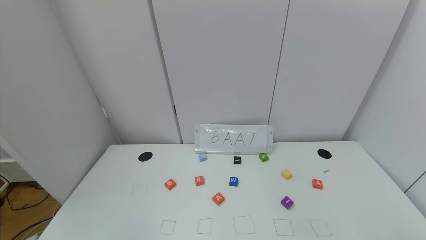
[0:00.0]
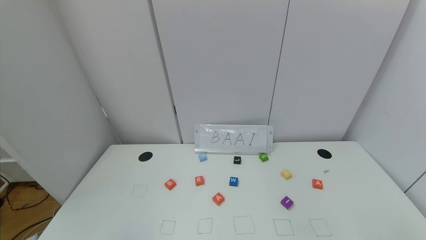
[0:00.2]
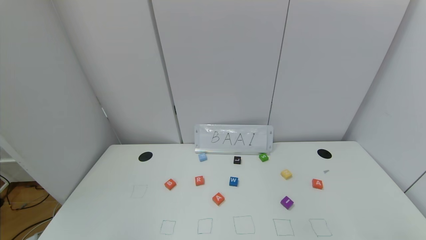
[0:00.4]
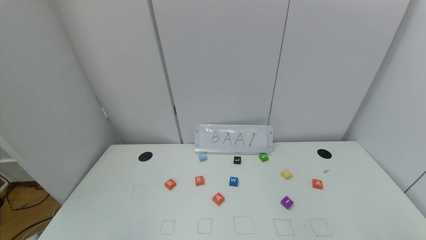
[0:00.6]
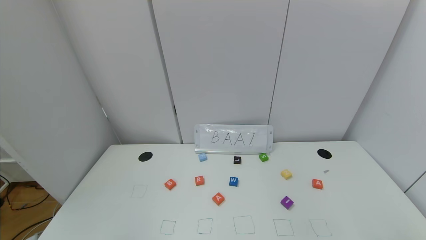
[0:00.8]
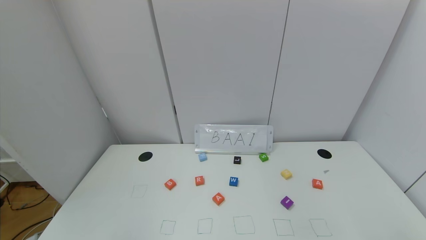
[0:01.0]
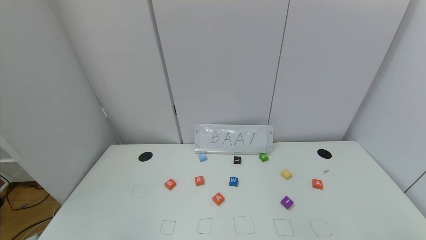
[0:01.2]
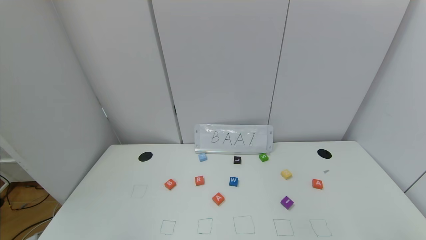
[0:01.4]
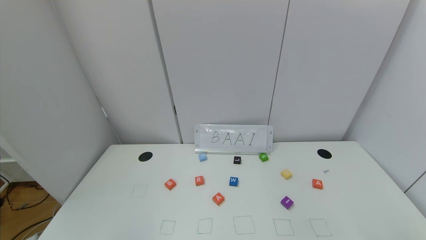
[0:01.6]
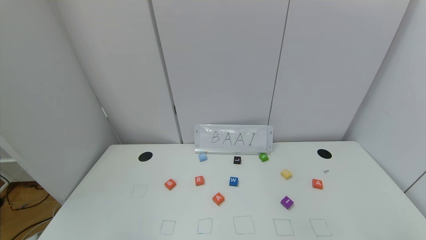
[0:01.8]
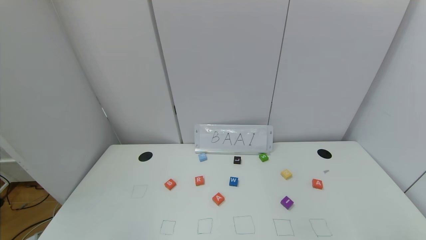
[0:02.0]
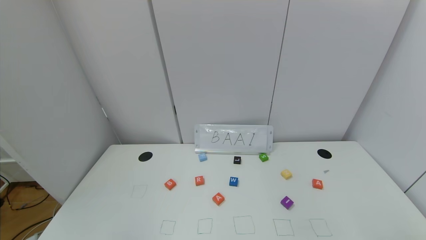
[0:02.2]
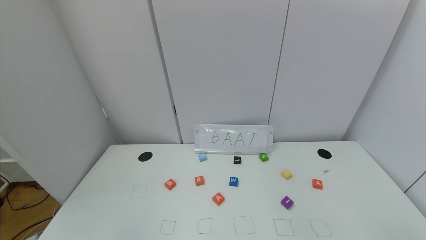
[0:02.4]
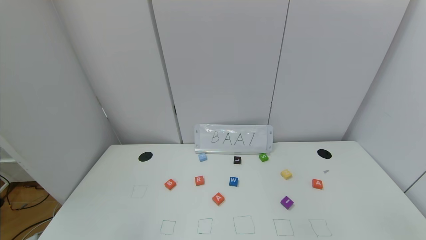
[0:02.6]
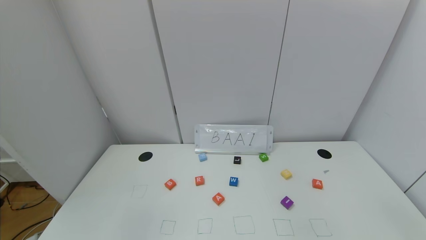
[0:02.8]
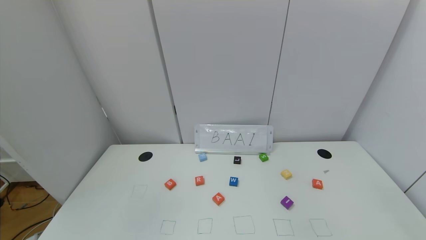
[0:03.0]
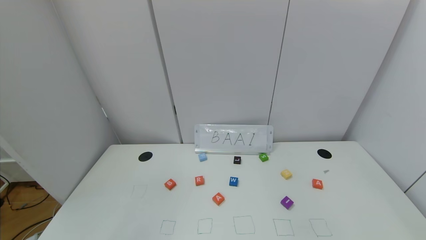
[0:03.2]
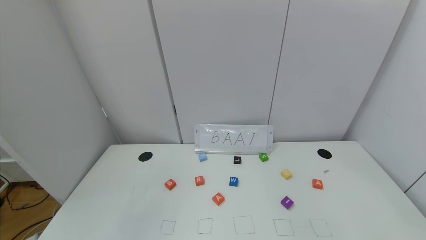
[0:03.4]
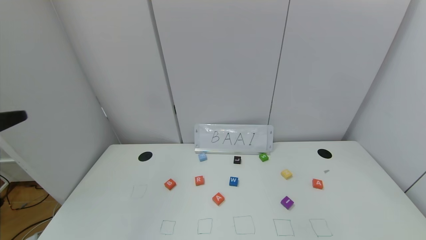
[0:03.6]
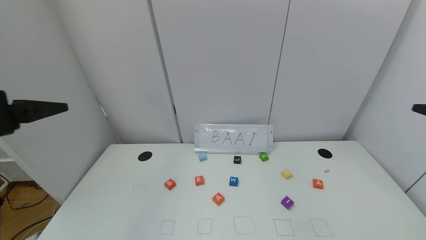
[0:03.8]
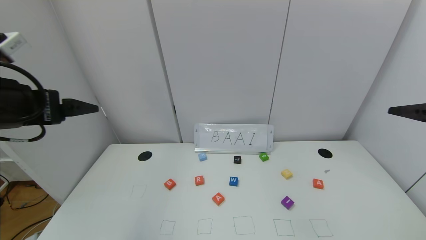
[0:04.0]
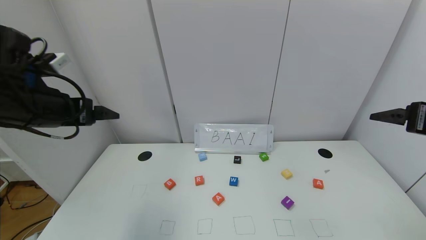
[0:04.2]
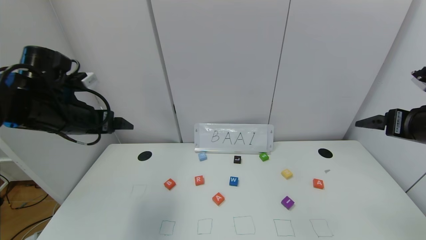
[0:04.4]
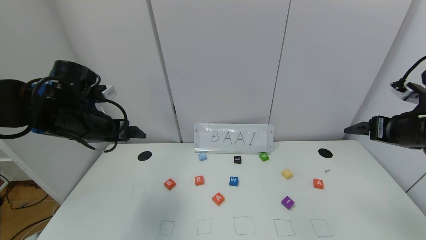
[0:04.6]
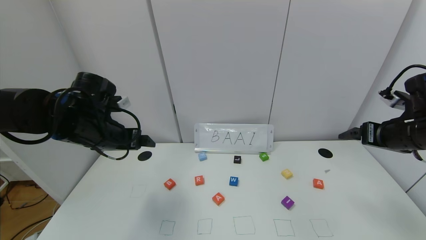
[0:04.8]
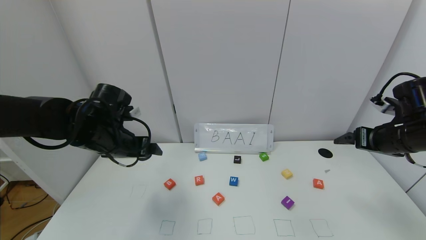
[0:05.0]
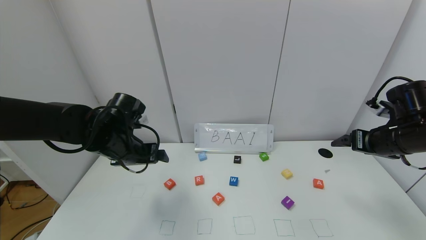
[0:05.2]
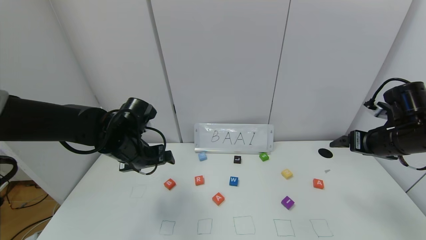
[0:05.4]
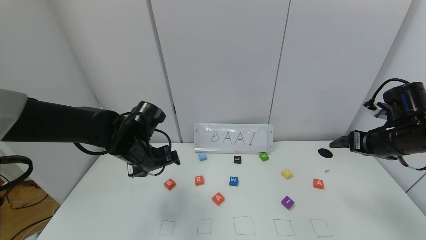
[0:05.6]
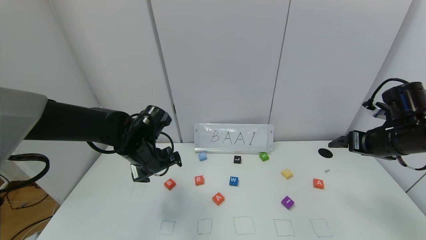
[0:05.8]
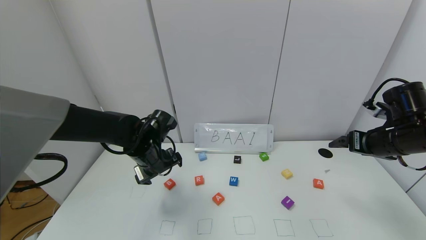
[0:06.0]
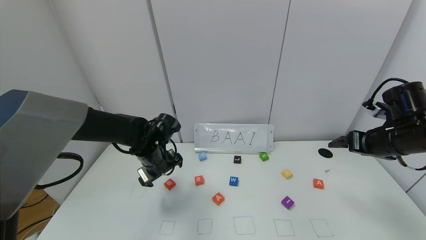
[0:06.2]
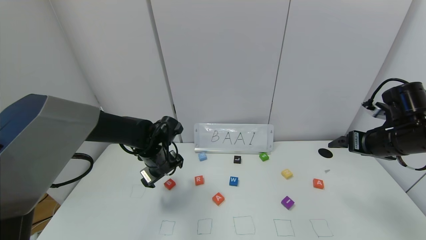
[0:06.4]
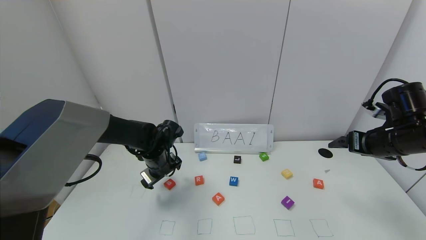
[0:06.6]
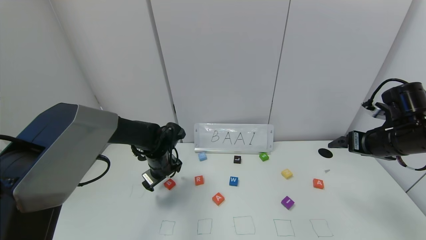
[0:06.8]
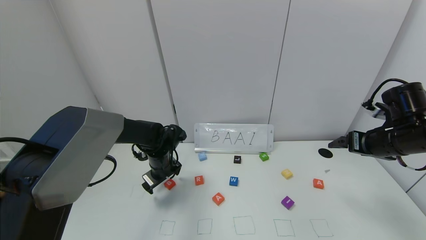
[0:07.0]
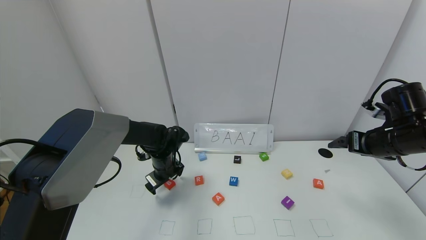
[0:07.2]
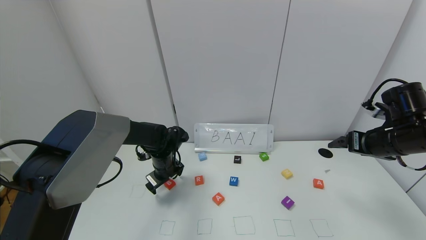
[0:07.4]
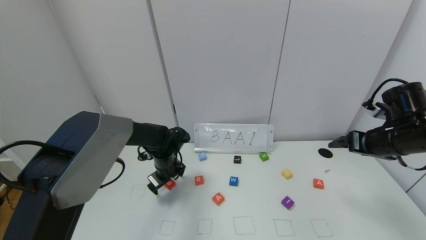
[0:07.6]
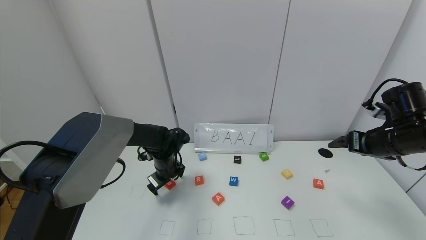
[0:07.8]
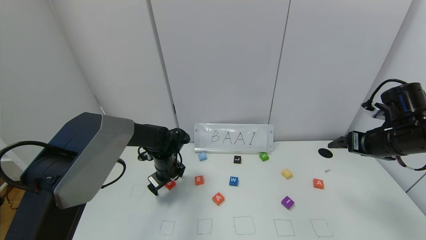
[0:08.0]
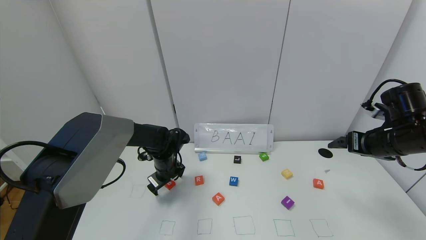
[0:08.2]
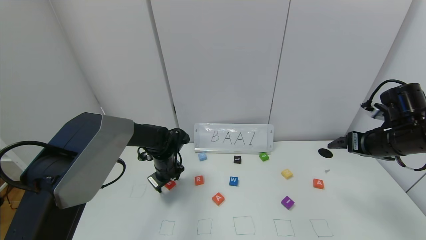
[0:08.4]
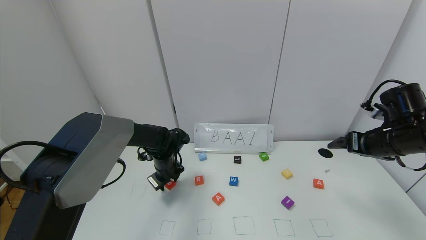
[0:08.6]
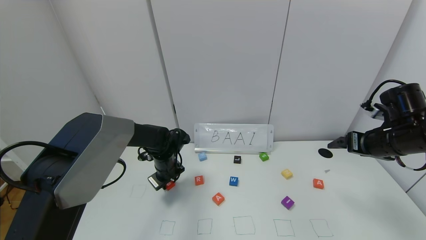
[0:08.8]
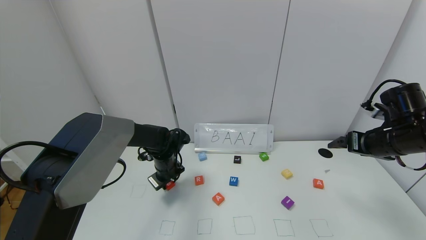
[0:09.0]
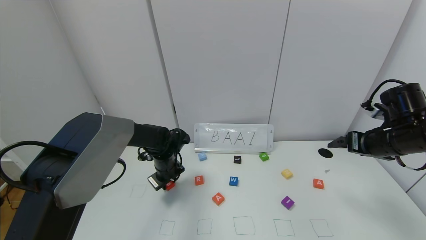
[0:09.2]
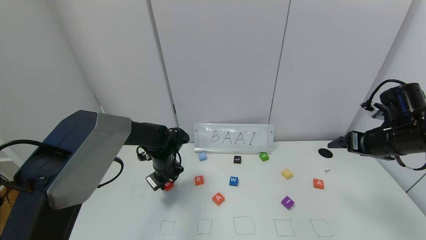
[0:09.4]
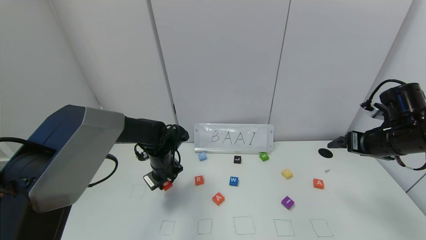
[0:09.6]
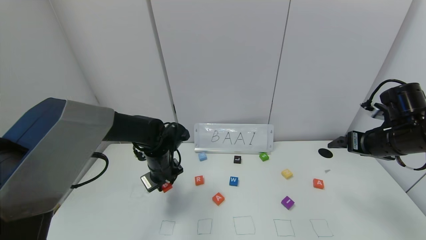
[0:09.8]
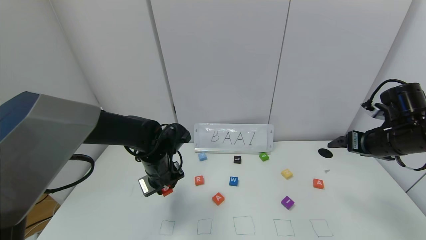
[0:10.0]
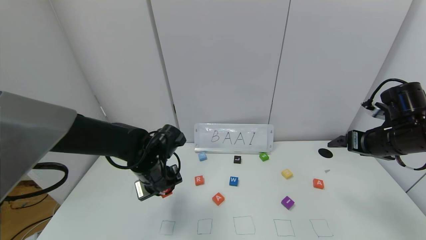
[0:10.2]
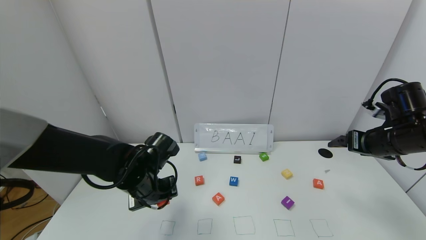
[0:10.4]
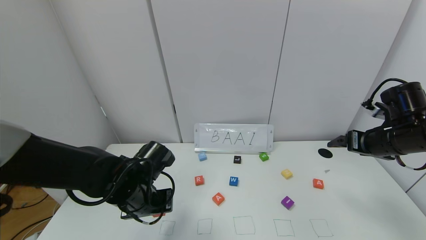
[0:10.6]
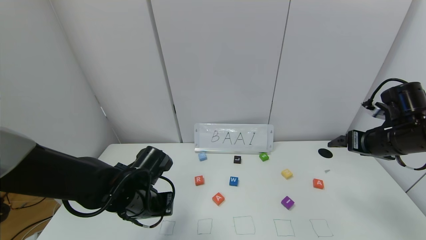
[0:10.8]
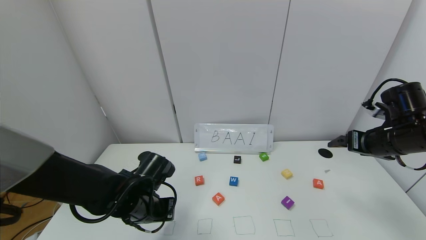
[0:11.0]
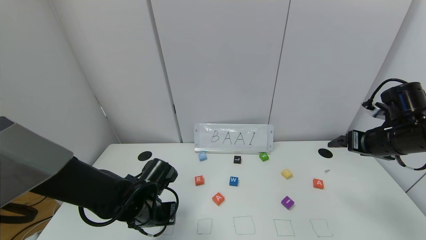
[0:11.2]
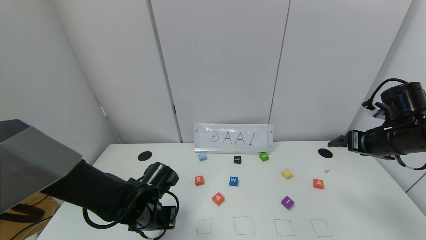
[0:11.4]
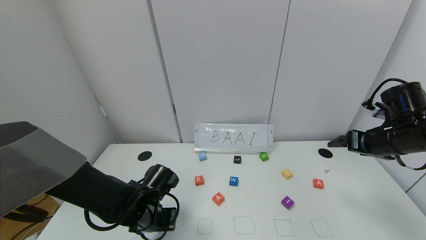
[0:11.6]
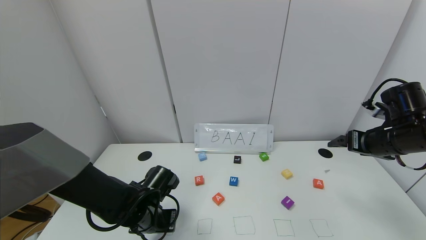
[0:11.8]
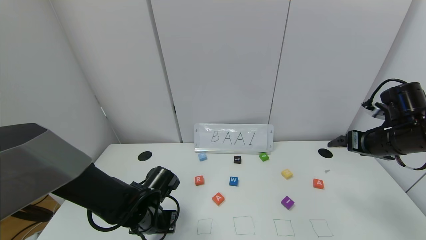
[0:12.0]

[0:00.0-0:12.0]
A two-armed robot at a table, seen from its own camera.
Task of the whole recording: use the gripper to find blocks with the letters b, a, a, and i on the table and arrange them into BAAI, then find r and N and turn the arranged baai into brian.
0:00.0 to 0:01.6: The two grippers keep their place.
0:03.0 to 0:04.4: Both grippers move forward, some 30 cm.
0:04.4 to 0:06.0: The right gripper is displaced downward and forward by some 10 cm; the left gripper travels downward, to the right and forward by approximately 20 cm.
0:06.0 to 0:07.6: The left gripper is displaced downward and forward by some 10 cm.
0:07.6 to 0:09.0: The left gripper closes.
0:09.0 to 0:10.4: The left gripper is displaced backward and upward by some 15 cm.
0:10.4 to 0:12.0: The left gripper heads downward, covering some 10 cm.

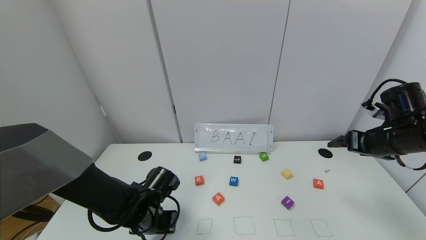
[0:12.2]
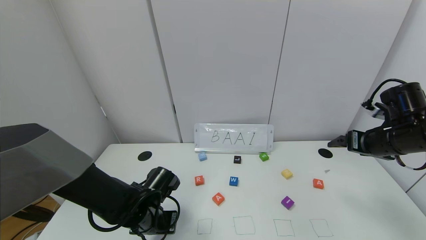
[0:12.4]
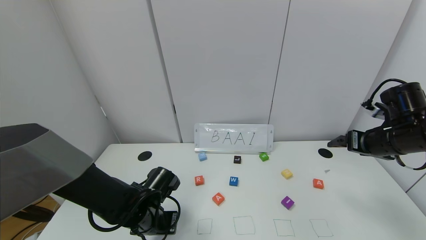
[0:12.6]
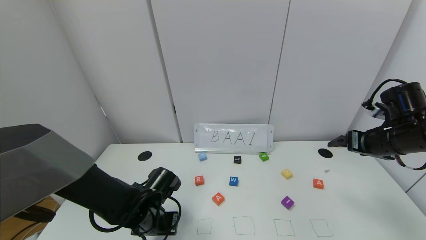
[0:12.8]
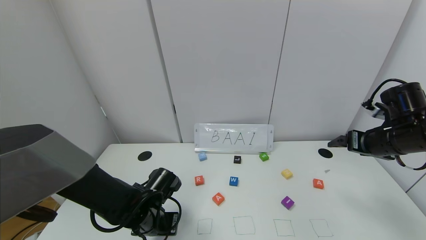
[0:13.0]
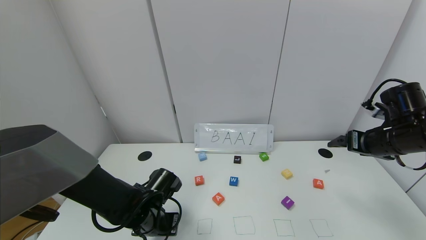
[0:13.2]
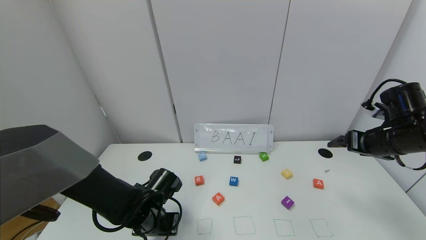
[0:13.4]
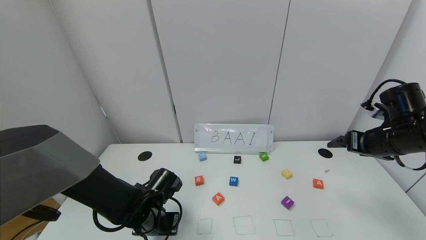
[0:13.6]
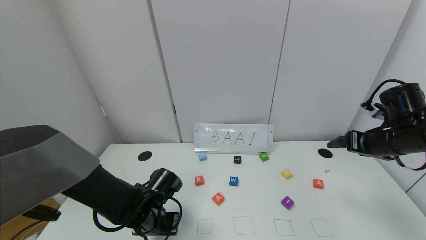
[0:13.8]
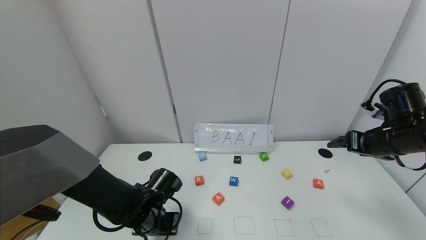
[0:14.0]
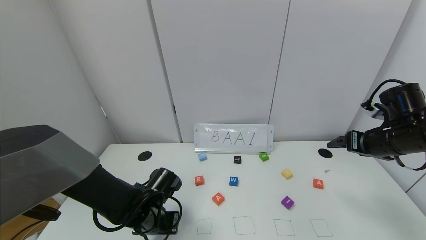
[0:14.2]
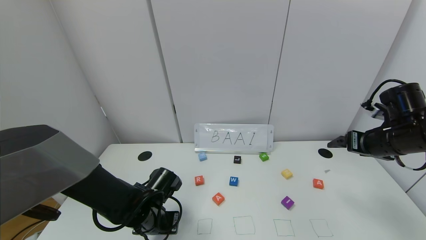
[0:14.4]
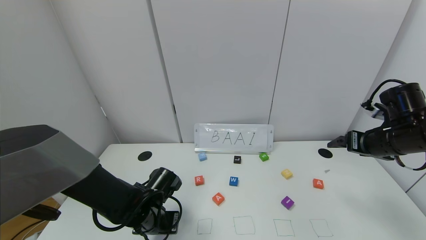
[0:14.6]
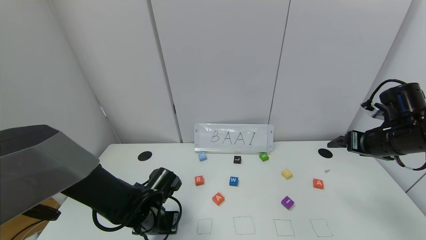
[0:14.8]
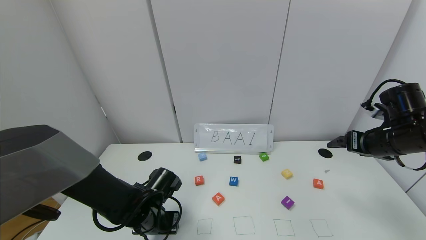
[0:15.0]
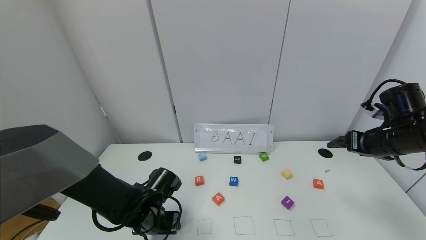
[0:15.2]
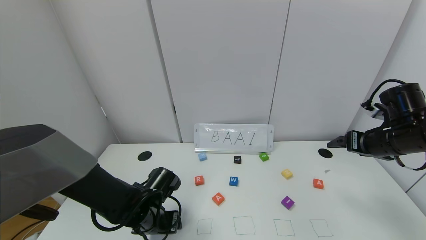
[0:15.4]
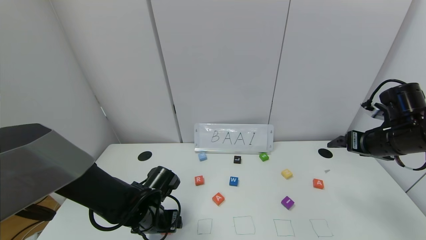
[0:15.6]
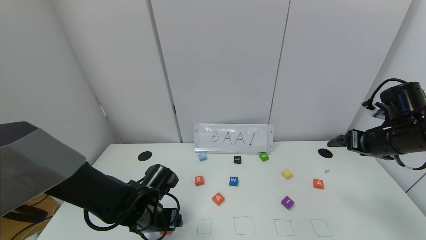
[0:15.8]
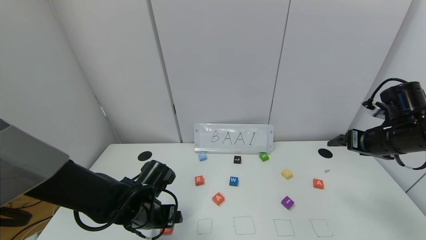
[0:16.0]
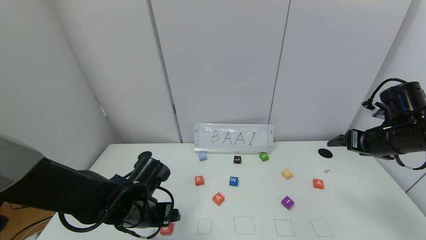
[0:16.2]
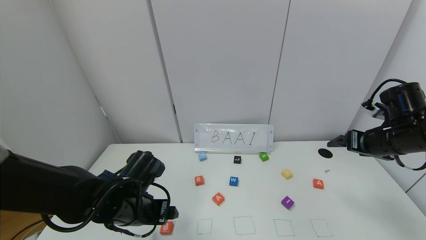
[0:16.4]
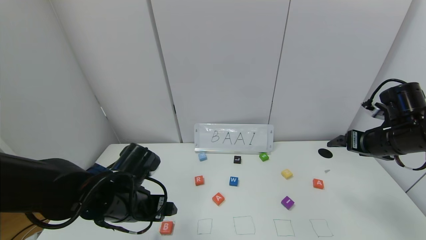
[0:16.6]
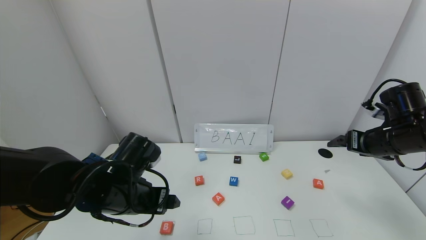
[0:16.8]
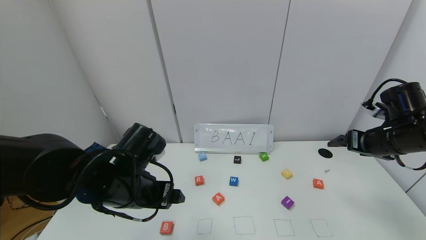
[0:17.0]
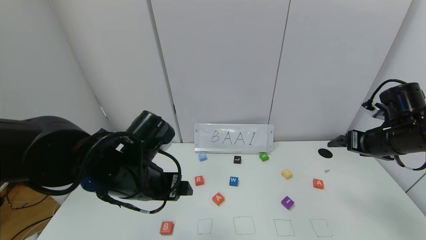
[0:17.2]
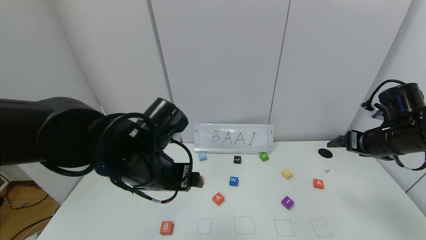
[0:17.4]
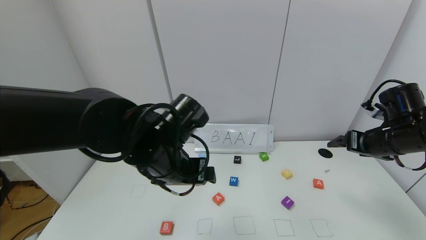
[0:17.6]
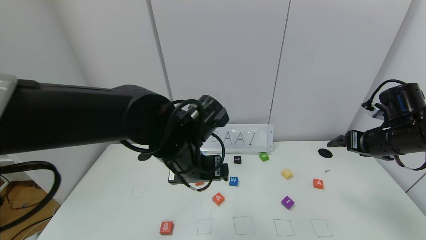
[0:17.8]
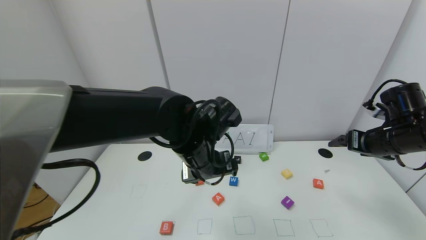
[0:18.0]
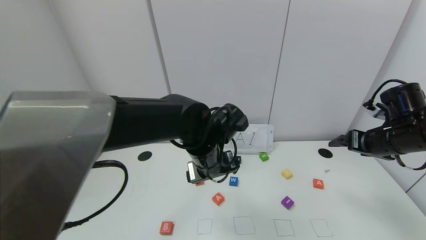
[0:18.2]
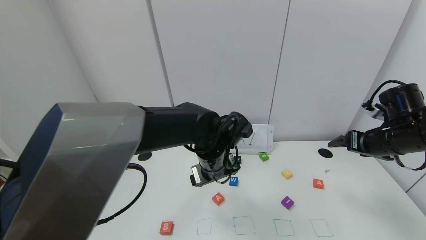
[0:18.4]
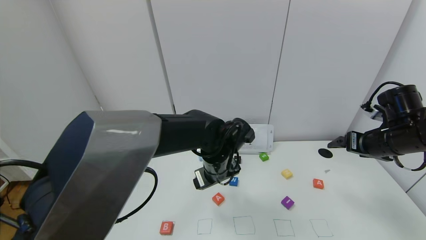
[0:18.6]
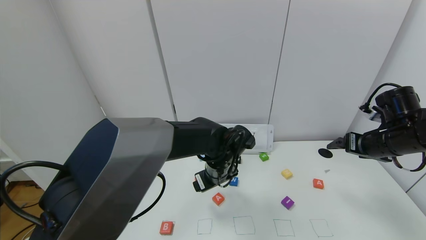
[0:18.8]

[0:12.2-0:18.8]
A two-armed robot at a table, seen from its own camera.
Task of the whole recording: use the gripper to find blocks with the letters b, a, a, and i on the table and arrange them into BAAI, then find r and N and turn the arranged baai into brian.
Step, 0:12.2 to 0:15.6: Place the block B in the first location.
0:12.2 to 0:13.8: Both grippers stay about where they are.
0:13.8 to 0:15.4: The left gripper opens.
0:15.4 to 0:17.2: The left gripper heads upward, covering about 15 cm.
0:17.2 to 0:18.8: The left gripper travels to the right, forward and downward by approximately 20 cm.
